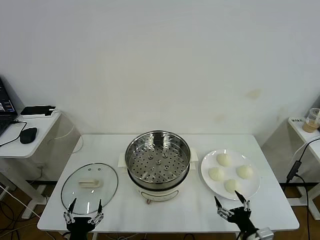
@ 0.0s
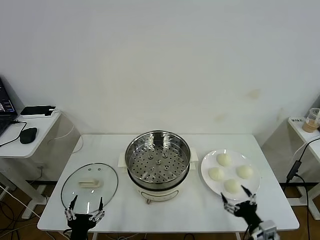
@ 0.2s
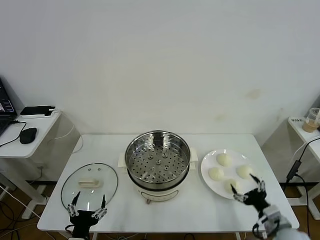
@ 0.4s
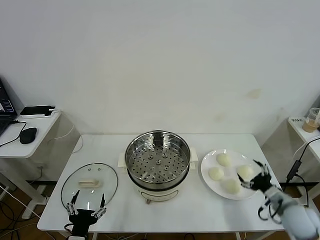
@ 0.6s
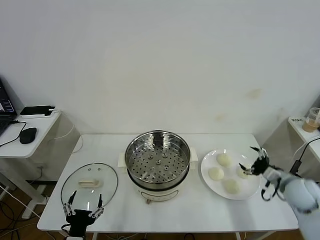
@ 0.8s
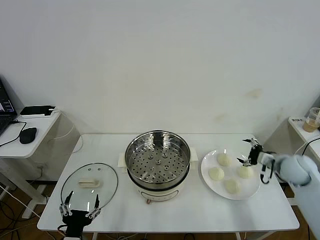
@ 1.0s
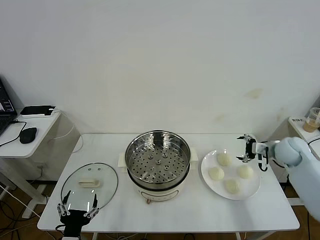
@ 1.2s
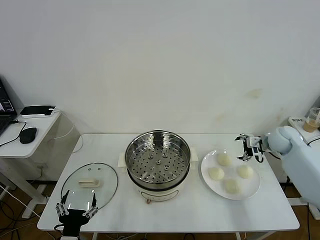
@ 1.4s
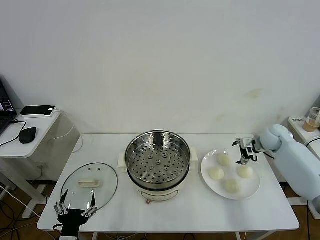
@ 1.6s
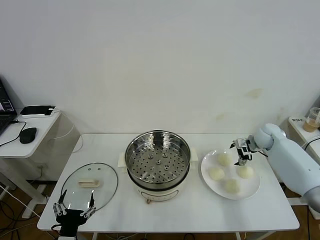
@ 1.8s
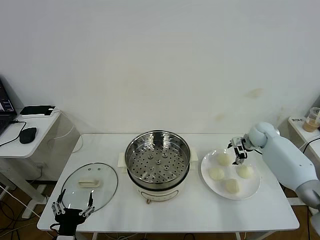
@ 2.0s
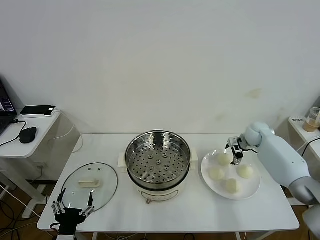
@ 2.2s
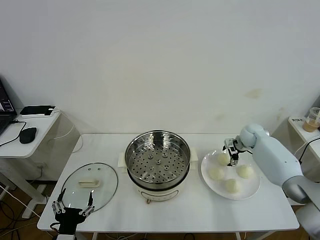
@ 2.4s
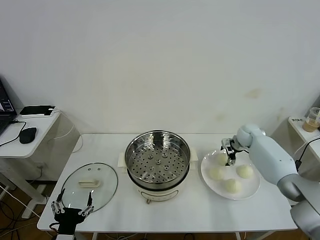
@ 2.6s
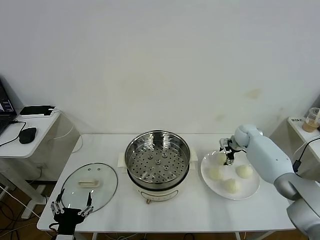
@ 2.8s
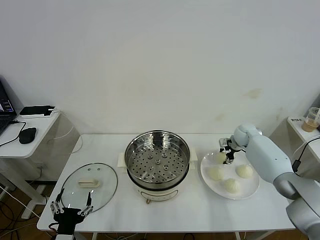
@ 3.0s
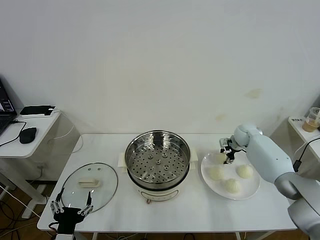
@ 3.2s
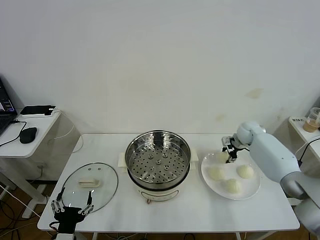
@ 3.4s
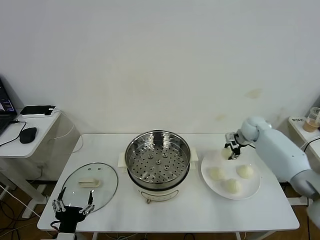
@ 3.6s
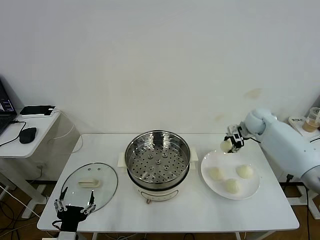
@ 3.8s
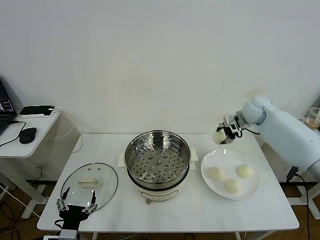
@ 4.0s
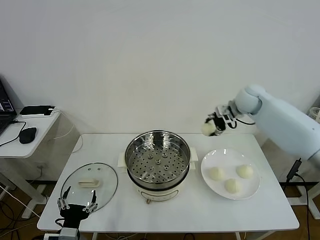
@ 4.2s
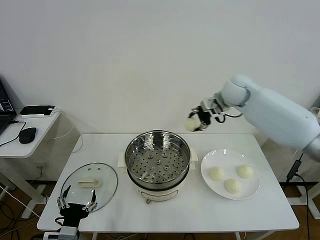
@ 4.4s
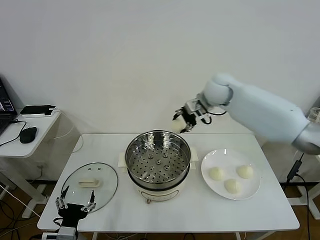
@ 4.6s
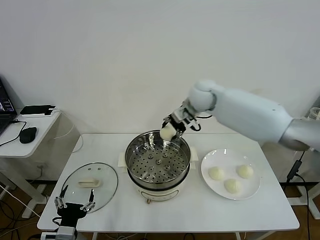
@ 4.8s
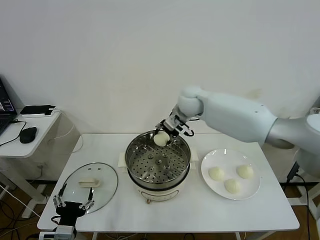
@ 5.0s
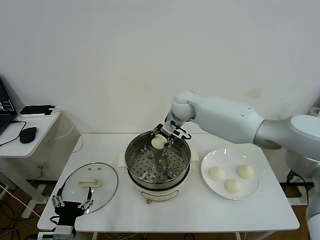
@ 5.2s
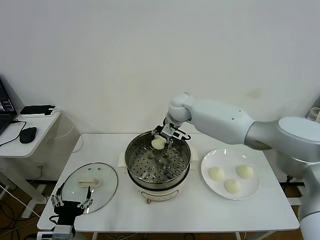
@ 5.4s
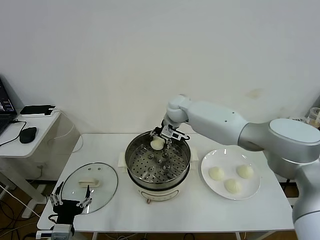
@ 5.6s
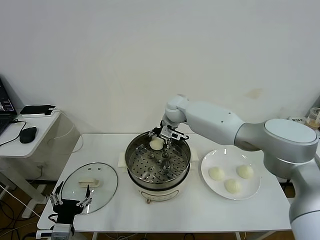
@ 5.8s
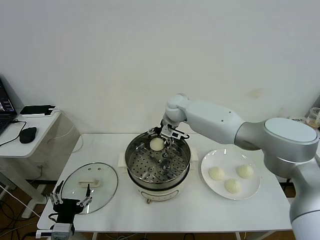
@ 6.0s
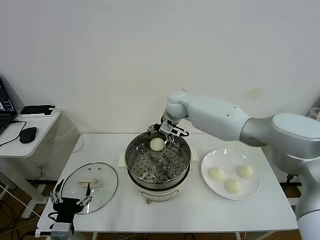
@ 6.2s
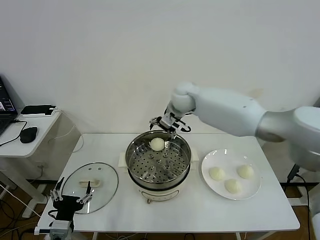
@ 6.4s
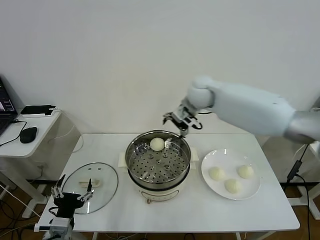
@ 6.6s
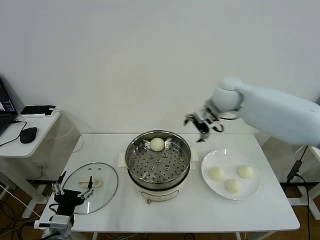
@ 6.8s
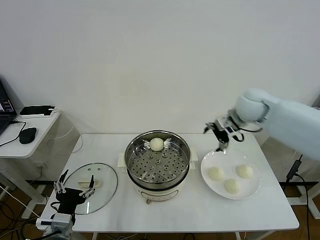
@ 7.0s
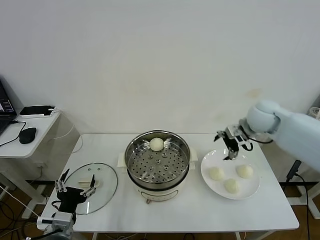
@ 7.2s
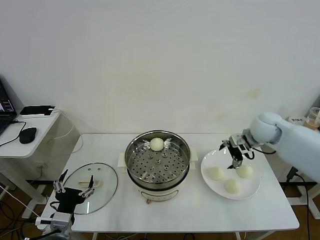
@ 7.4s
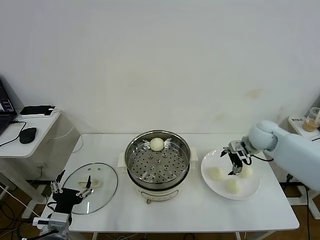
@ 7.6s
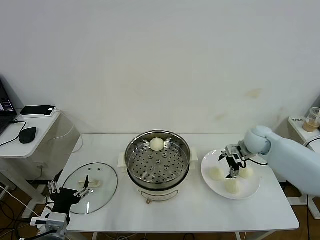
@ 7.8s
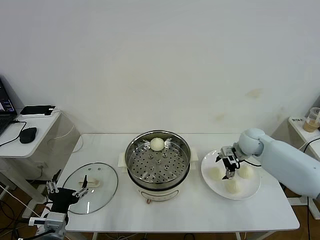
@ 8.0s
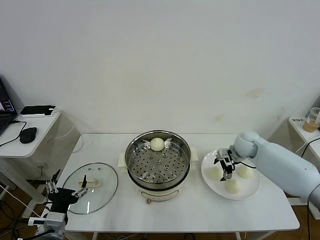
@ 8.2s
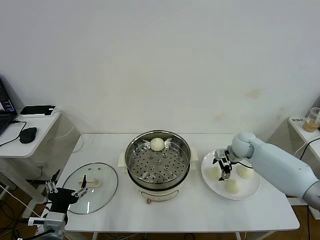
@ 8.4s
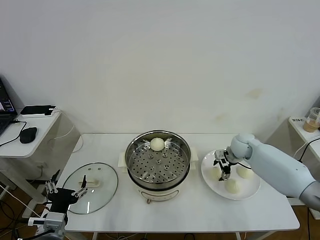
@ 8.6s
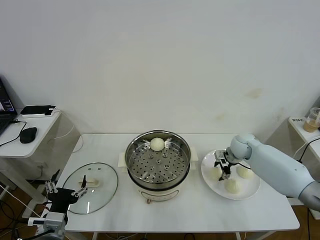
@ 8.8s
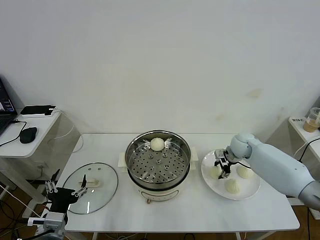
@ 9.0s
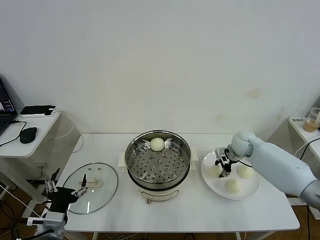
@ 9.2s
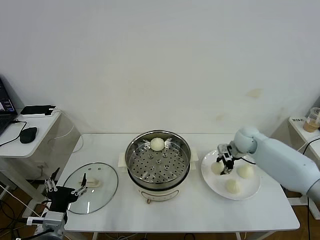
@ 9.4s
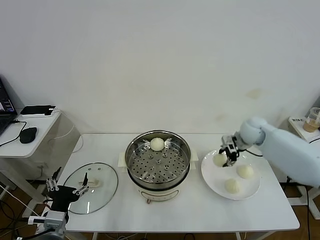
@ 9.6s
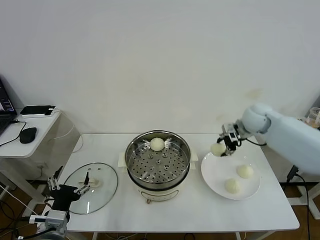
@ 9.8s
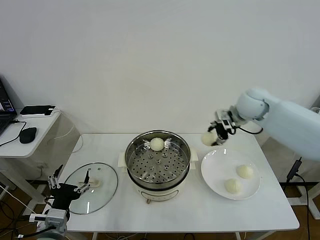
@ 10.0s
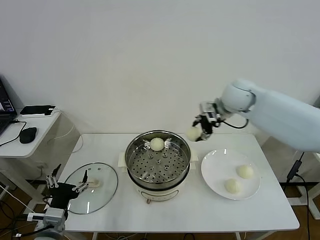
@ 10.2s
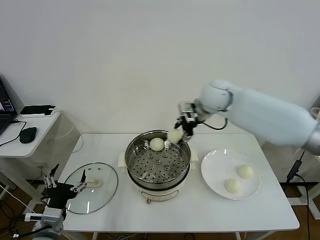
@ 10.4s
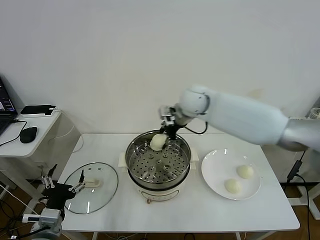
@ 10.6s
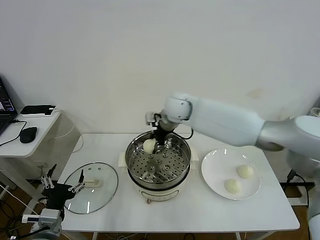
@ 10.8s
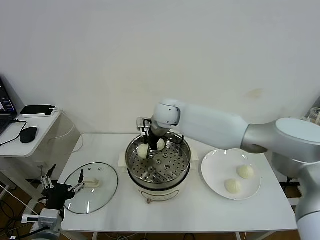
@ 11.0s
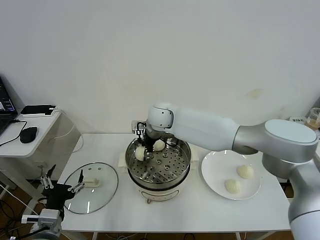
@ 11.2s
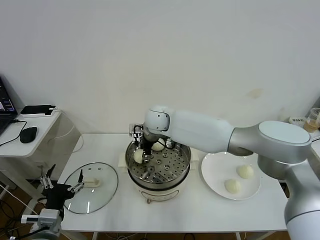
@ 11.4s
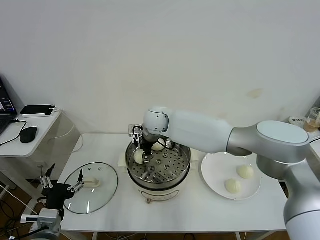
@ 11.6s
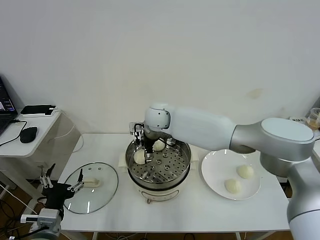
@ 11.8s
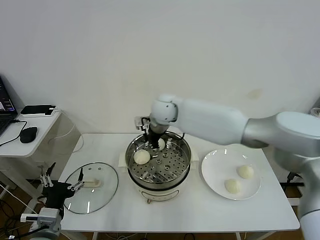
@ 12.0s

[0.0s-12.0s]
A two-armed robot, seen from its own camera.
Task of the whole recording: take steamed baozi put them in steamer then cover it.
Step, 0.0s to 3.0s: Grasp the baozi in the plate with right gripper.
Step, 3.2s to 6.0s: Place the baozi on the steamer with right gripper.
Step, 6.2s to 9.2s: Grasp the baozi in the plate with right gripper.
Step, 9.4s to 11.6s: Place the baozi on the steamer with right gripper.
1.6s to 3.0s: The right gripper moves to the left and forward, roughly 10 cm, and closes.
3.0s to 4.4s: The right gripper goes approximately 30 cm upward and to the left.
4.4s to 6.0s: The right gripper is displaced to the left and downward by some 15 cm, and opens.
6.0s to 7.6s: The right gripper travels to the right by roughly 30 cm.
7.6s to 9.0s: The right gripper moves downward, about 5 cm, and closes its fingers.
9.0s to 10.4s: The right gripper heads upward and to the left, covering approximately 30 cm.
10.4s to 12.0s: The right gripper is displaced to the left by about 10 cm, and opens up.

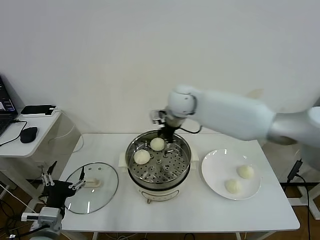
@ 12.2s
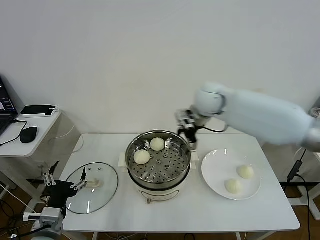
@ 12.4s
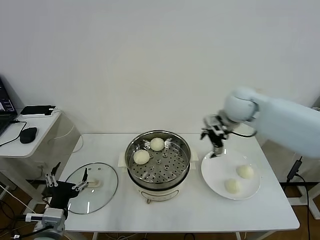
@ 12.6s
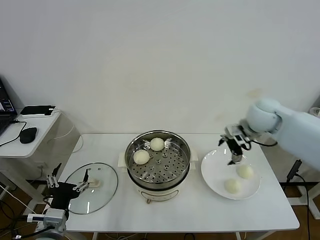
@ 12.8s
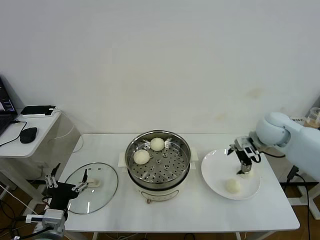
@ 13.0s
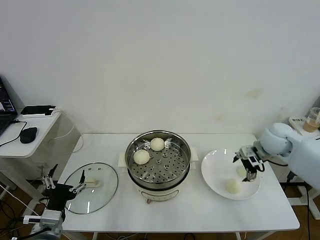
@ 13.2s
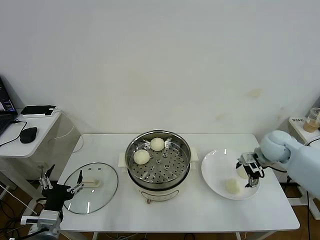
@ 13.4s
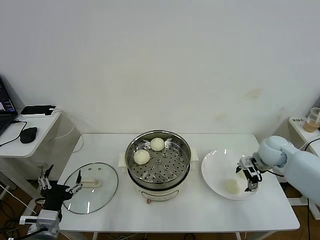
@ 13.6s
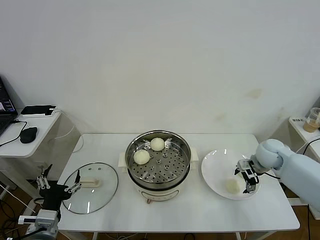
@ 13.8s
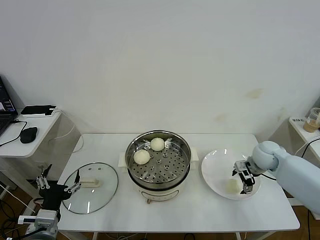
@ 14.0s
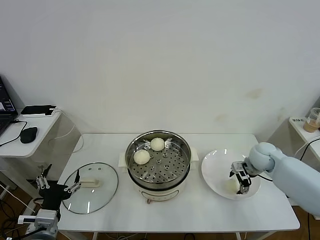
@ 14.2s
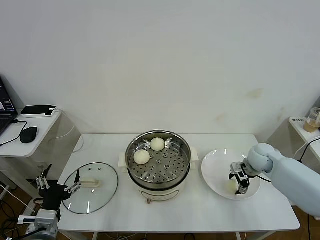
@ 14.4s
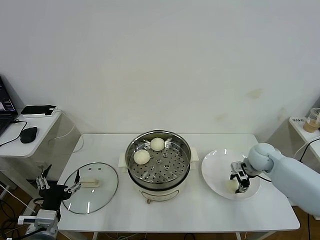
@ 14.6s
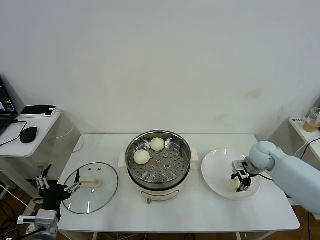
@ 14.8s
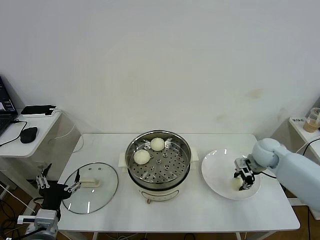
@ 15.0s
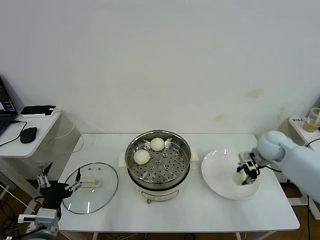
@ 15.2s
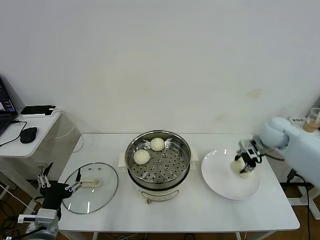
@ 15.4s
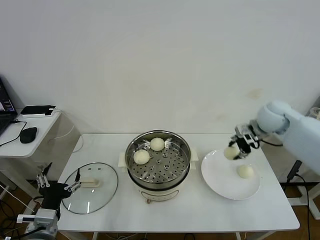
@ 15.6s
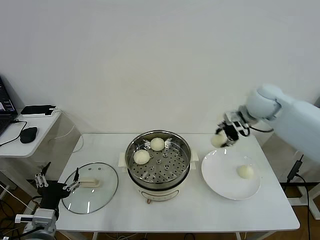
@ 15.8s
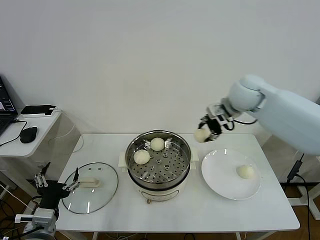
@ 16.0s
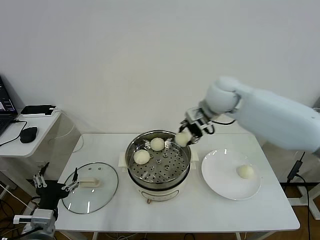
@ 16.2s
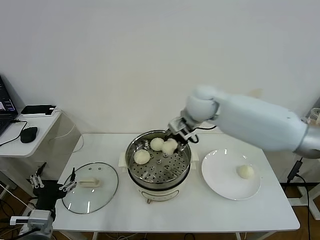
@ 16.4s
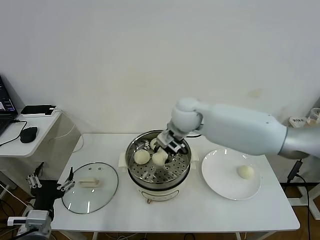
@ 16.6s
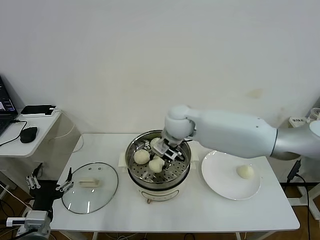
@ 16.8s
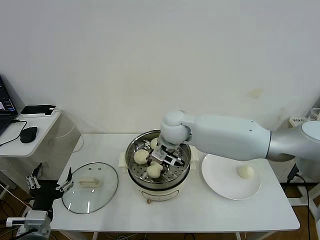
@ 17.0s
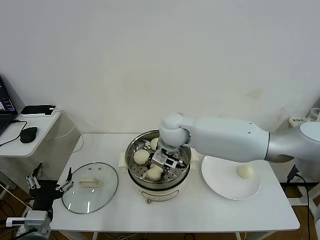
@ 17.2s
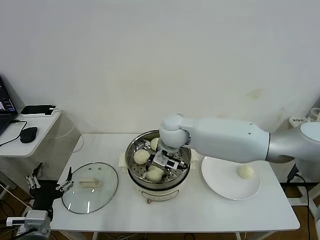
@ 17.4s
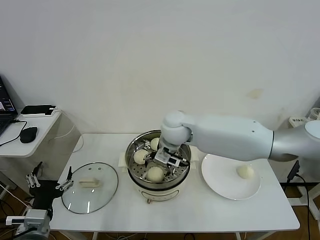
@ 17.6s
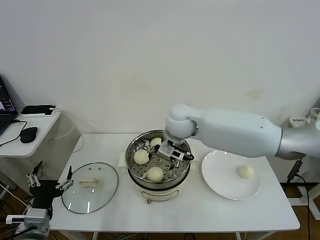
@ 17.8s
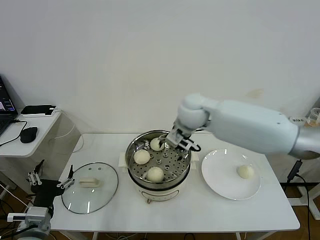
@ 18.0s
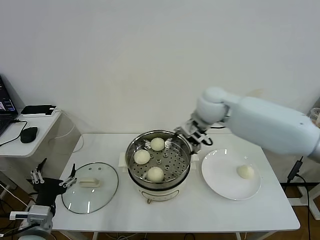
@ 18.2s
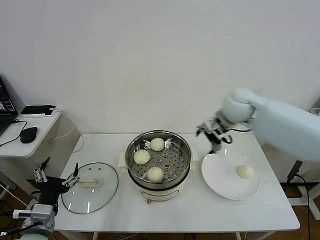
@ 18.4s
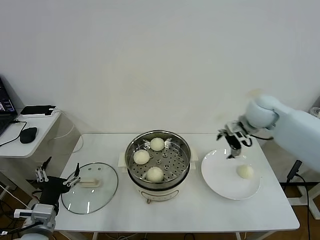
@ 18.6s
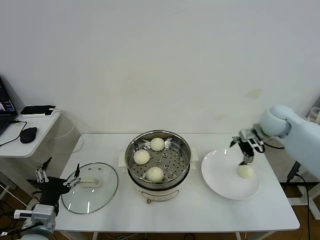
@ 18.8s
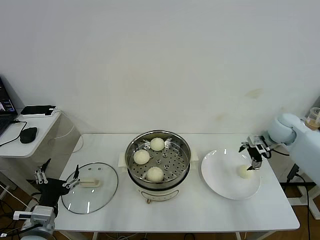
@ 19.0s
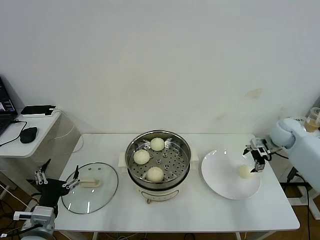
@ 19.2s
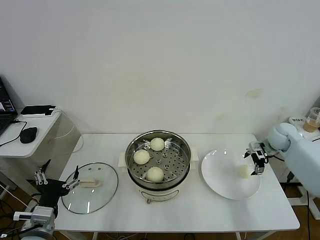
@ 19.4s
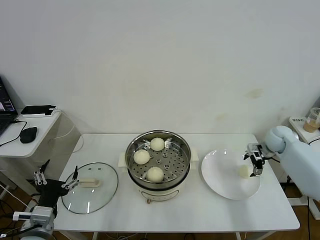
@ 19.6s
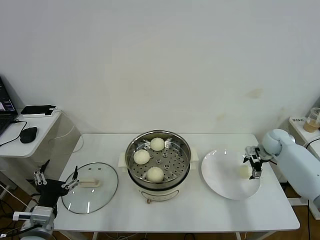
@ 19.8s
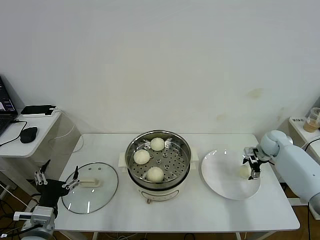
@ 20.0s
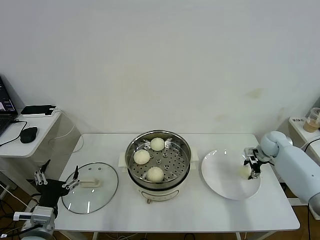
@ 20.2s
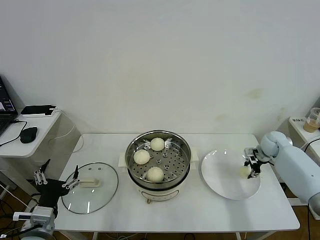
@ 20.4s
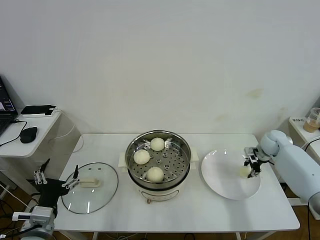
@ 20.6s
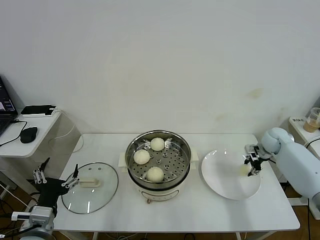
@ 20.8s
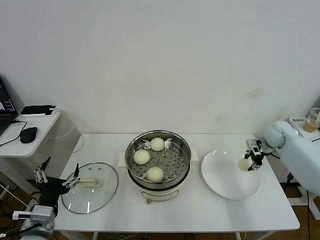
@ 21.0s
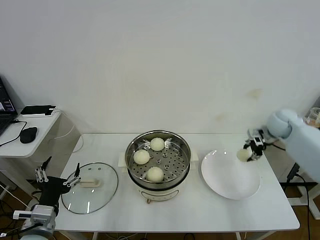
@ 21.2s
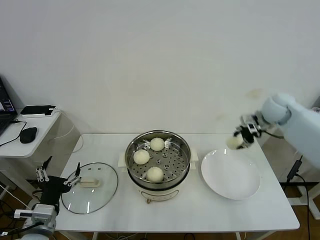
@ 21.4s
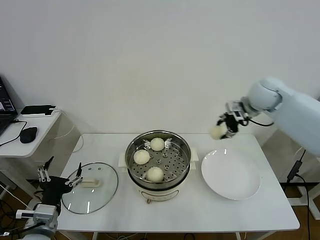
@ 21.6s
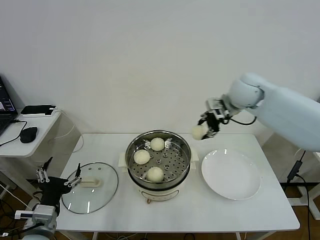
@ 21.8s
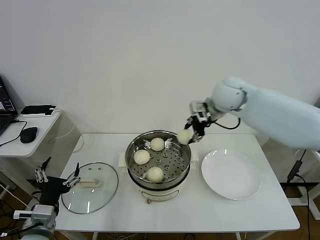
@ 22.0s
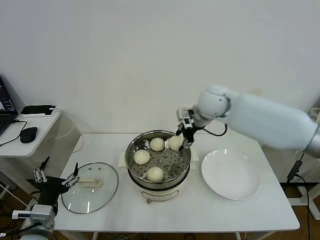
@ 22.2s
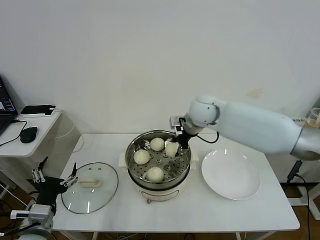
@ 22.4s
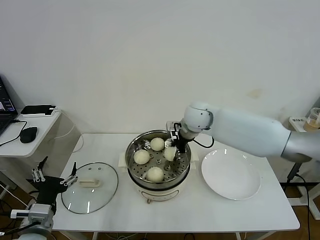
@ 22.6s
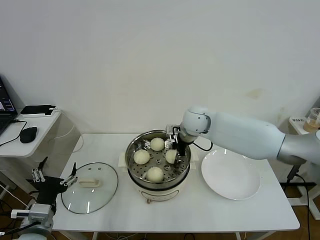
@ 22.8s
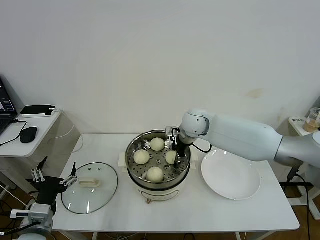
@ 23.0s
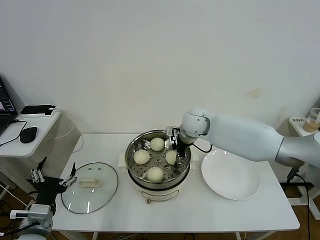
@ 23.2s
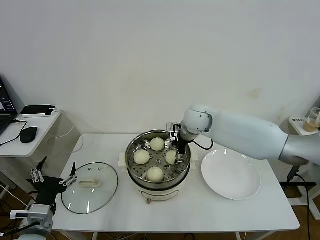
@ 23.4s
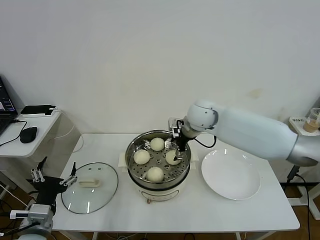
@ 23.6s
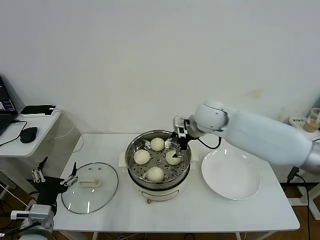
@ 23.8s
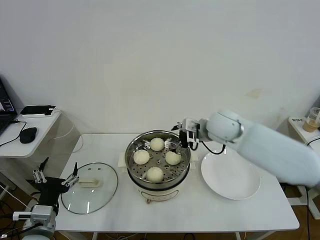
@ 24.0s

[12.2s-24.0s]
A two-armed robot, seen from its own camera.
Task of the whole recording: take steamed baozi put them in steamer then cover it.
Step, 12.2s to 14.6s: Grasp the baozi in the plate with right gripper.
Step, 14.8s to 17.6s: Place the baozi on the steamer with right gripper.
Step, 17.8s to 20.6s: Grasp the baozi in the plate with right gripper.
Step, 20.8s to 23.4s: Place the baozi on the steamer with right gripper.
12.2s to 13.6s: The right gripper heads to the right and downward, covering approximately 35 cm.
13.6s to 15.2s: The right gripper closes up.
15.2s to 16.6s: The right gripper heads to the left, covering about 30 cm.
16.6s to 18.2s: The right gripper is displaced to the right by about 10 cm, and opens its fingers.
18.2s to 19.6s: The right gripper travels to the right and downward by about 35 cm.
19.6s to 21.0s: The right gripper closes.
21.0s to 22.6s: The right gripper goes approximately 30 cm to the left.
22.6s to 24.0s: The right gripper moves backward and to the right, some 10 cm, and opens.
